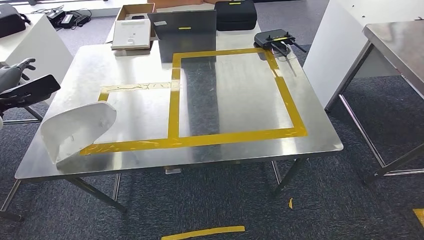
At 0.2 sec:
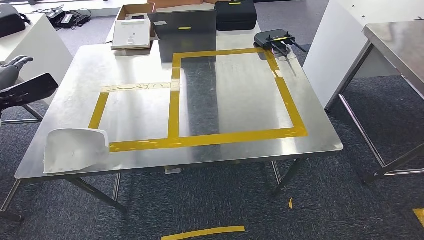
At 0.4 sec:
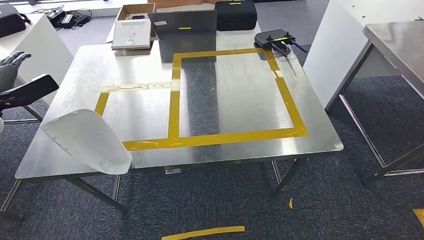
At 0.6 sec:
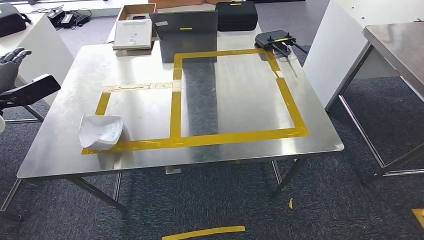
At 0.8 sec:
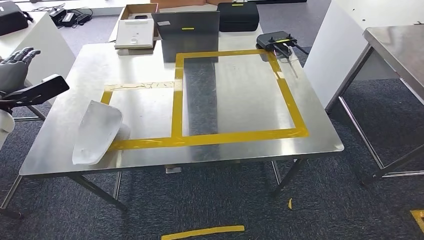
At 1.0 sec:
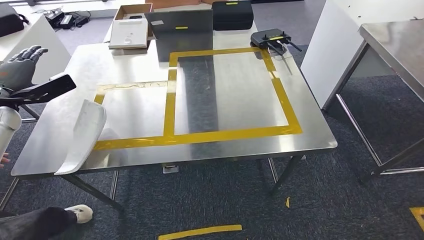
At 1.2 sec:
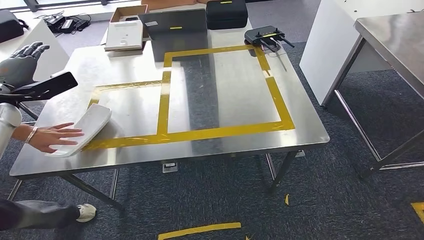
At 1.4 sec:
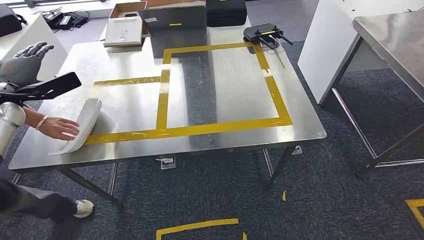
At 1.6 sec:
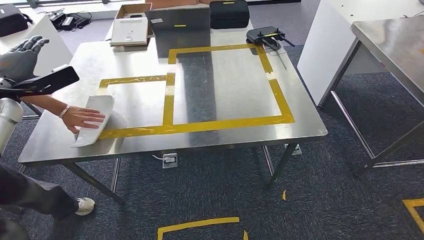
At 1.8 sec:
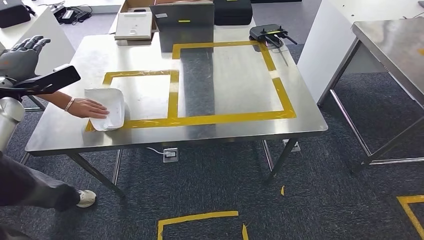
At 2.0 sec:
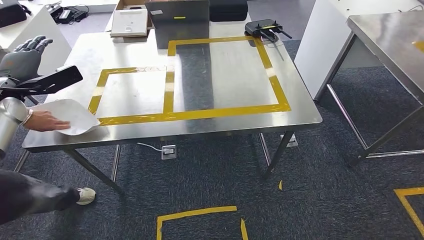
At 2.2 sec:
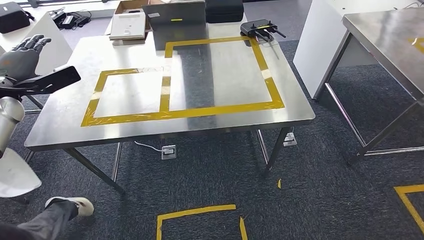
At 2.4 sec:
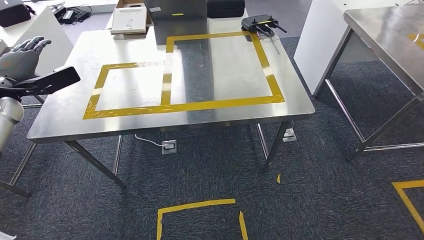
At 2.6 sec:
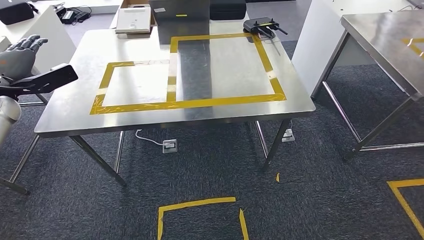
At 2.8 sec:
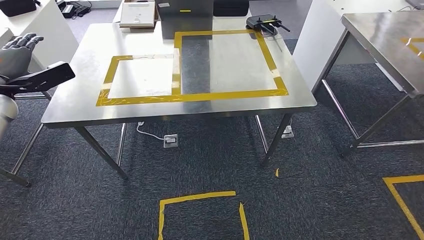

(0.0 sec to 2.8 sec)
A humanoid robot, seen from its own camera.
Step, 2.0 sec - 2.8 sec: Move to the initial position of the workbench.

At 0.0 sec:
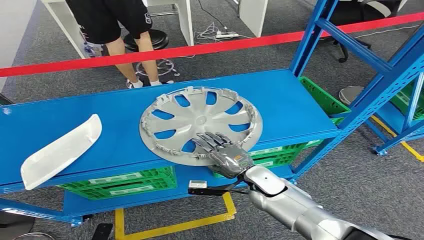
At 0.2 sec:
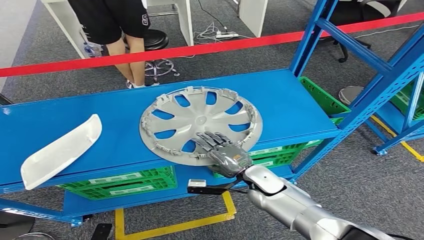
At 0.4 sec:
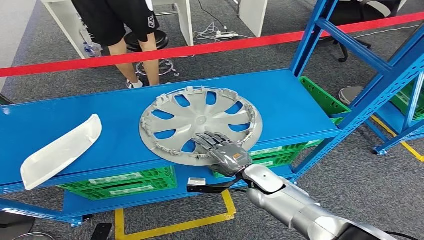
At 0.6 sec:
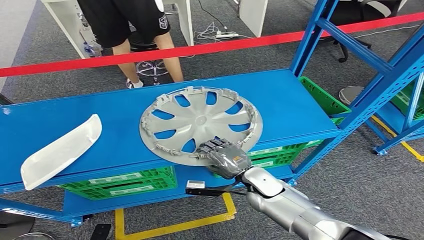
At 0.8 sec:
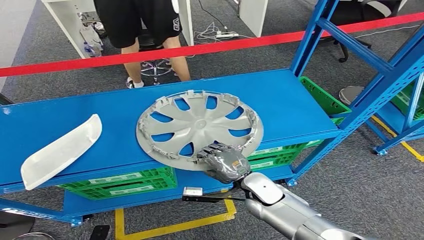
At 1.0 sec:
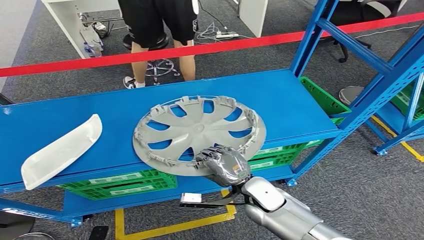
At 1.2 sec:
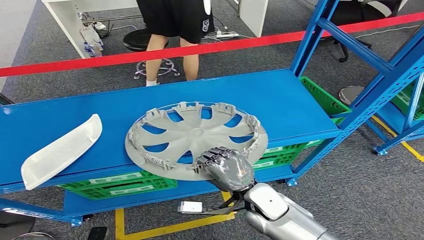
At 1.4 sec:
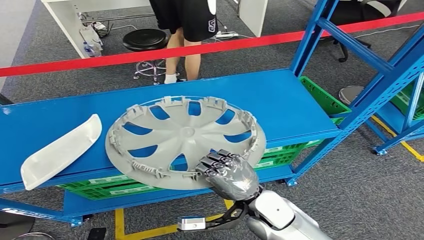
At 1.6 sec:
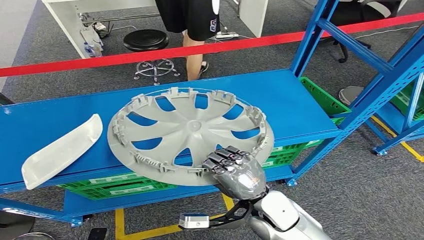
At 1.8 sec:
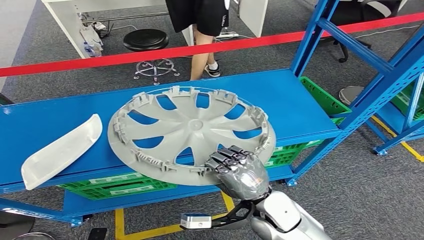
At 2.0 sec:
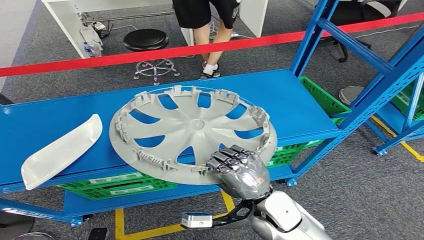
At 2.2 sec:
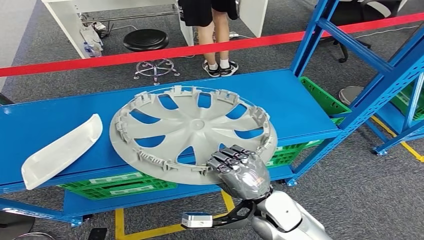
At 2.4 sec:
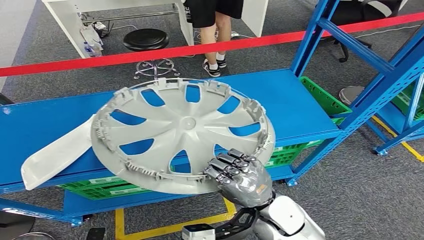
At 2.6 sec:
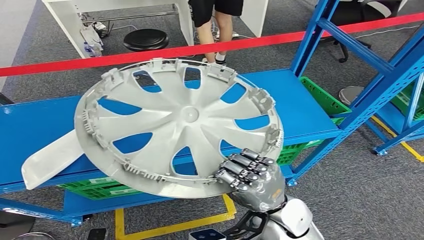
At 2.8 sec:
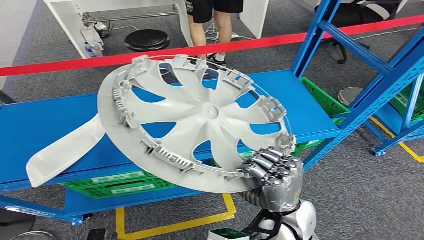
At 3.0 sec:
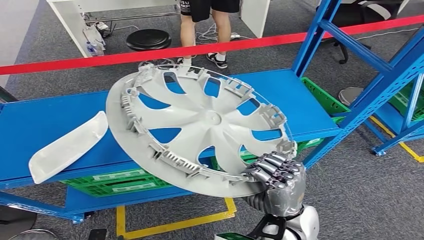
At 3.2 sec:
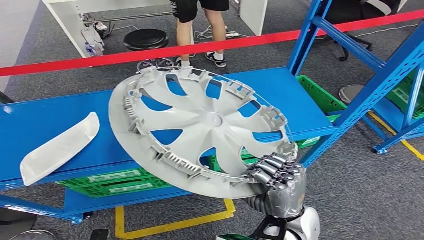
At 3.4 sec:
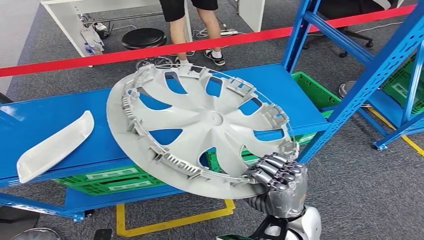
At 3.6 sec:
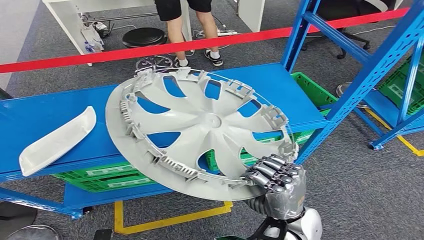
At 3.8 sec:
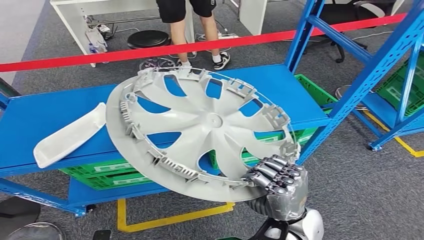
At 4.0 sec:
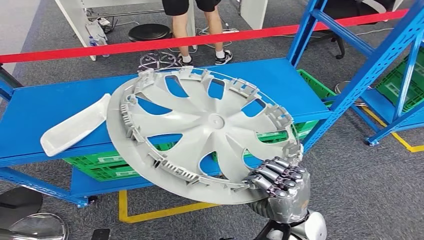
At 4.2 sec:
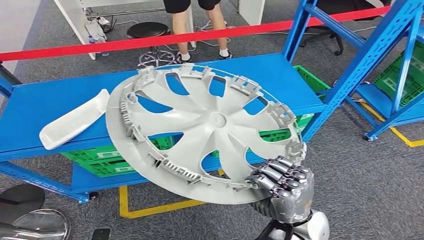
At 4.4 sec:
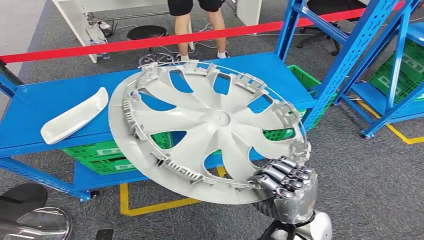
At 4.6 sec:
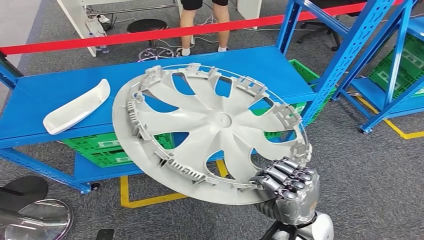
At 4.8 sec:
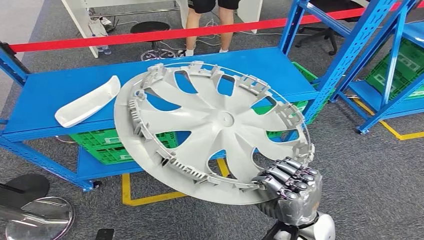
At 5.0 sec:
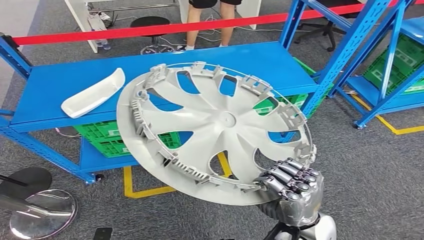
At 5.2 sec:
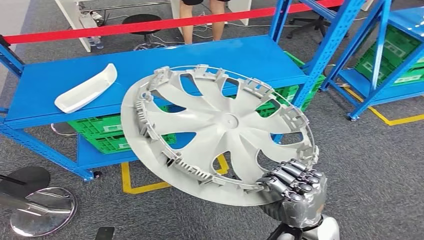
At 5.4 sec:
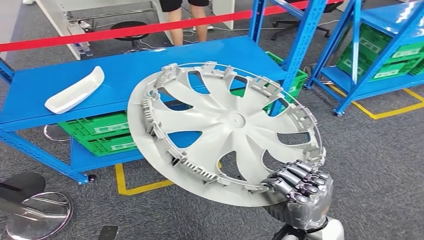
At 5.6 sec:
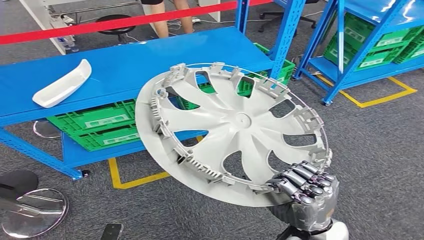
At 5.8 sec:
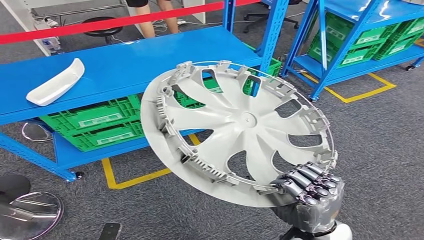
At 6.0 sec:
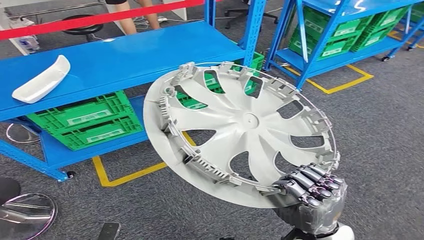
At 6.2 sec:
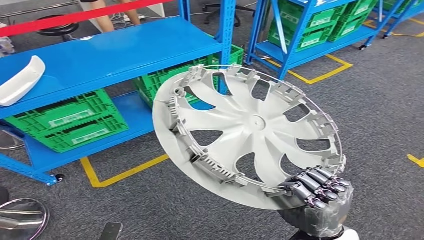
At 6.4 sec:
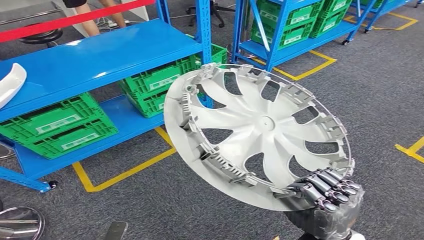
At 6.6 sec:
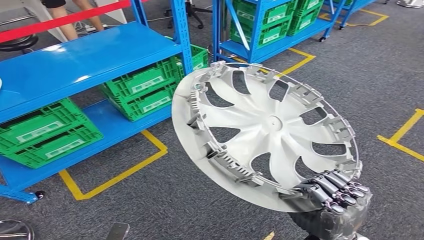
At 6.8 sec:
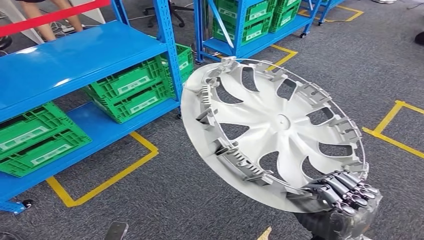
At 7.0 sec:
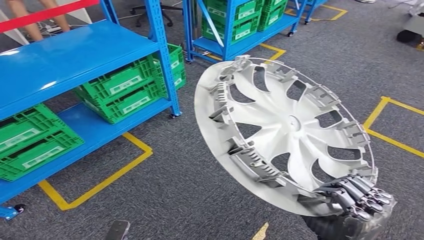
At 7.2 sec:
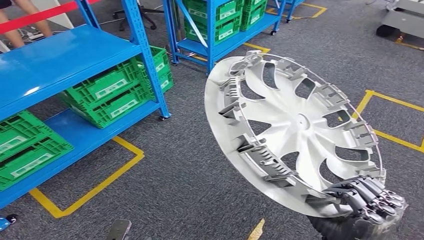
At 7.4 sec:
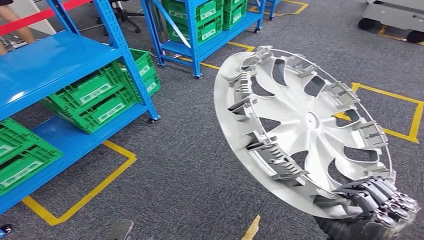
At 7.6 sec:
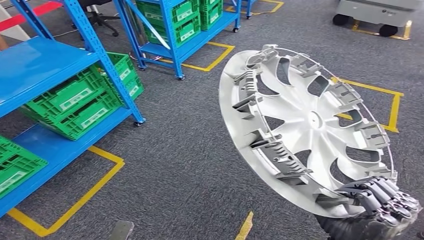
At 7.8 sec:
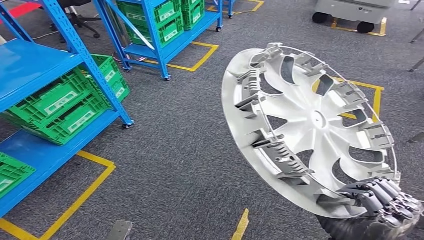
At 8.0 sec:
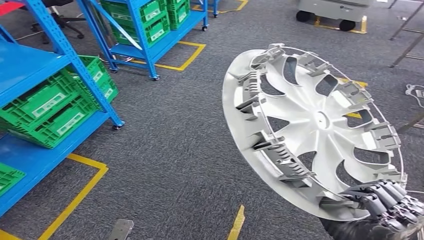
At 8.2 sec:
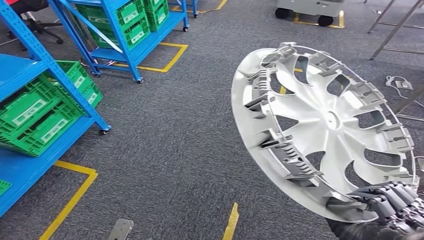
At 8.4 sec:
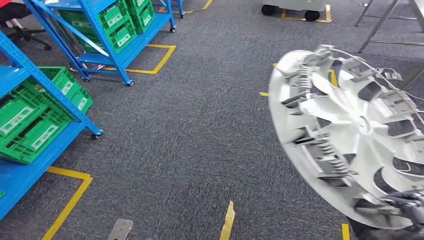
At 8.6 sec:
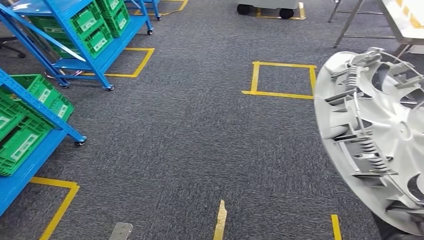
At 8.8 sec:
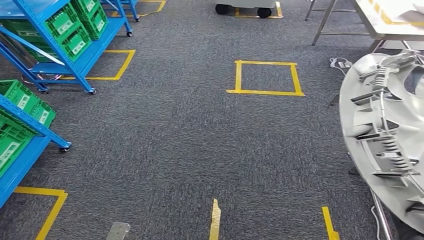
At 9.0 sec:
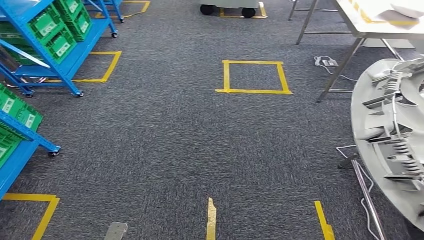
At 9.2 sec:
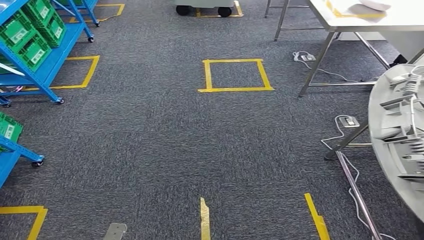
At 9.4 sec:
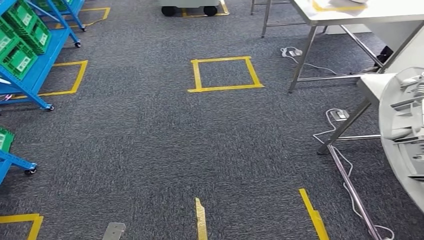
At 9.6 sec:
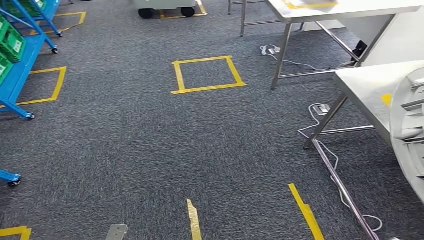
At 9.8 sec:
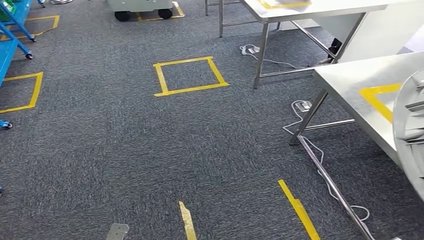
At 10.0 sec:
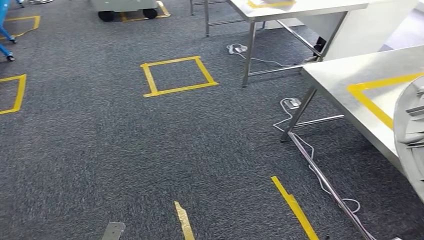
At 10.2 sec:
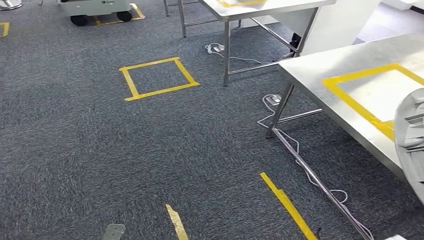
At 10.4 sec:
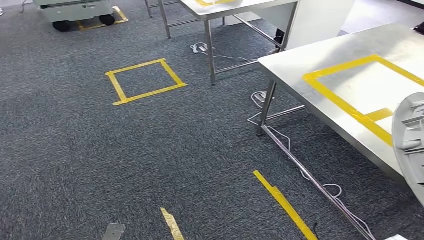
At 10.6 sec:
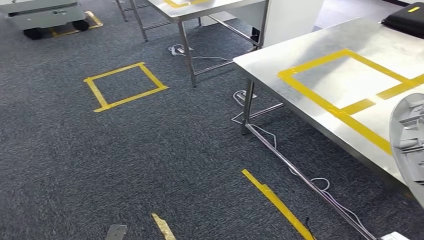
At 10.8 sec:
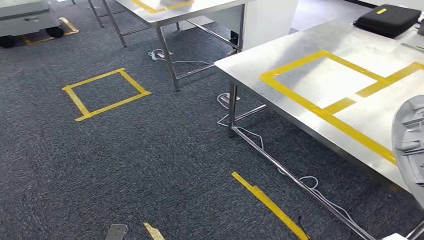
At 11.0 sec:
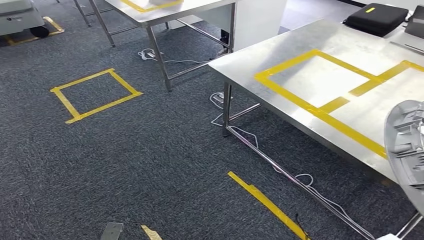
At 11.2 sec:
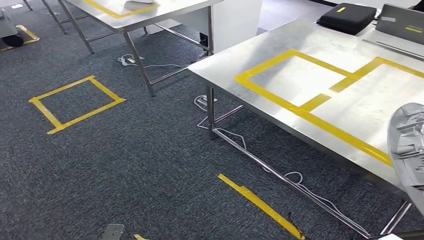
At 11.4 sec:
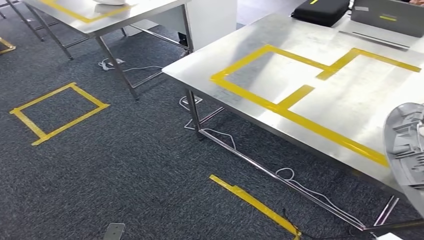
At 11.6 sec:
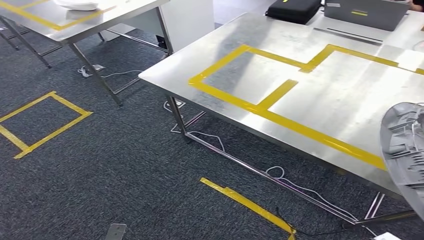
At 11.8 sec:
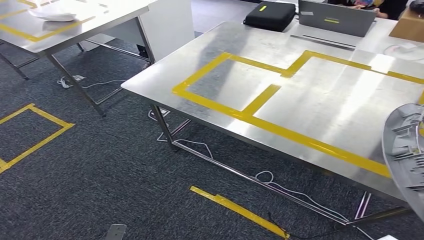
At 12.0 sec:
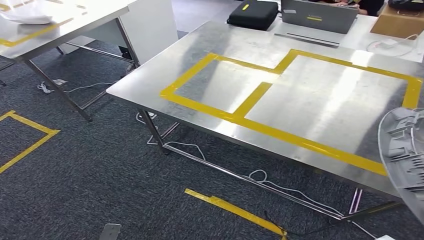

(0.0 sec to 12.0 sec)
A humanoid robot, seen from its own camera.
Step, 0.0 sec - 2.0 sec: Take small components from the rack.
